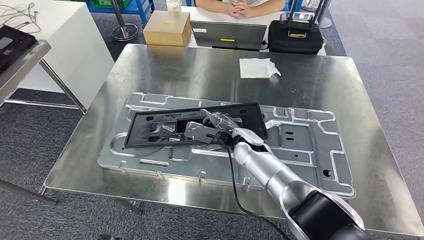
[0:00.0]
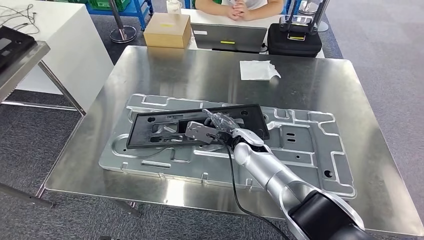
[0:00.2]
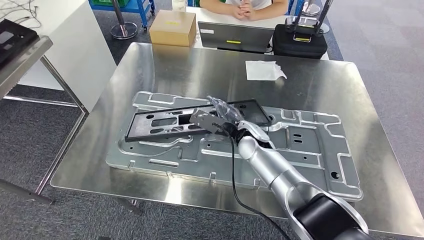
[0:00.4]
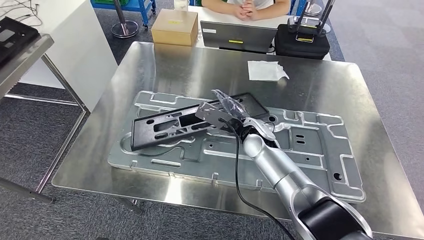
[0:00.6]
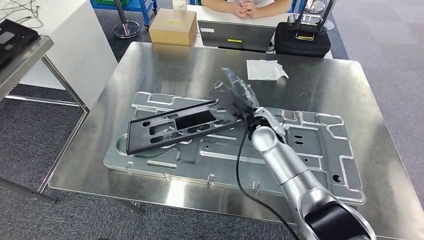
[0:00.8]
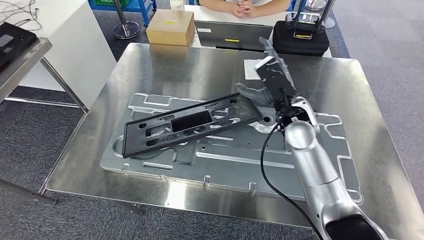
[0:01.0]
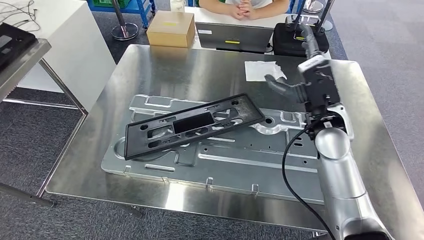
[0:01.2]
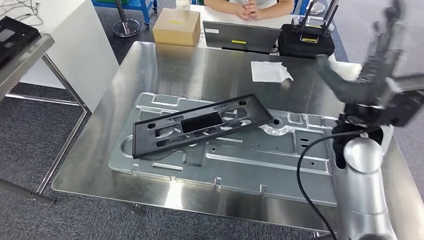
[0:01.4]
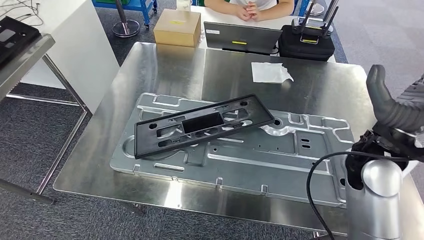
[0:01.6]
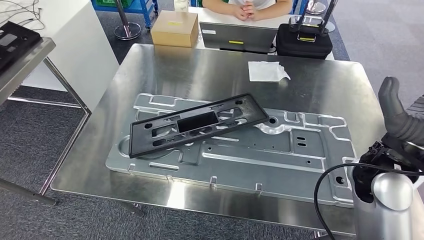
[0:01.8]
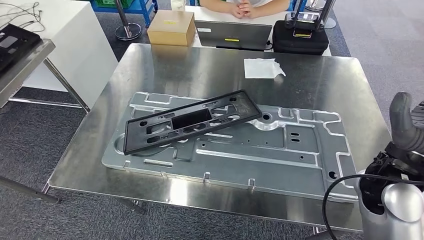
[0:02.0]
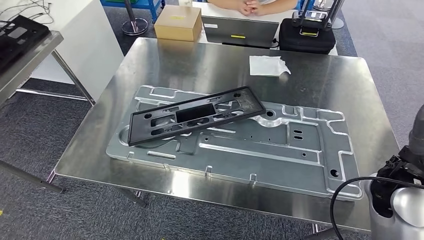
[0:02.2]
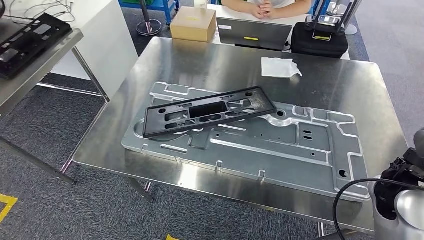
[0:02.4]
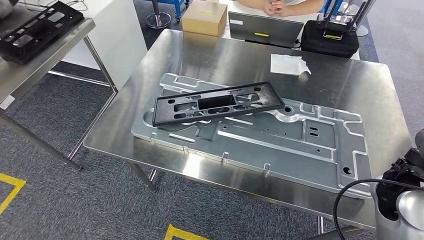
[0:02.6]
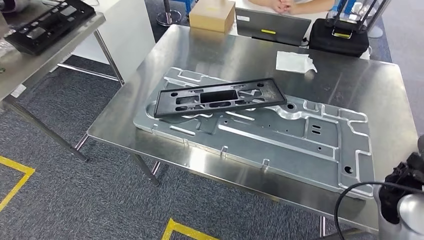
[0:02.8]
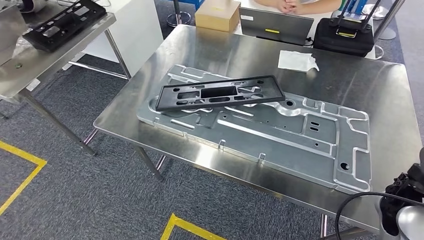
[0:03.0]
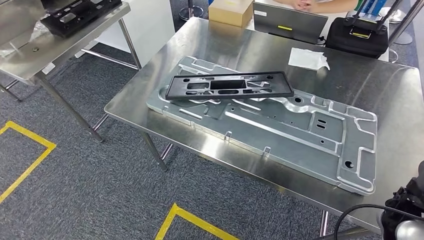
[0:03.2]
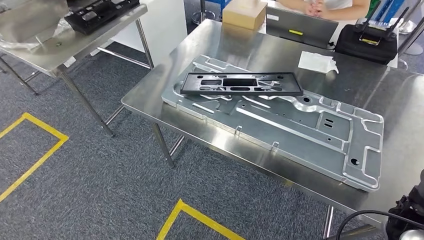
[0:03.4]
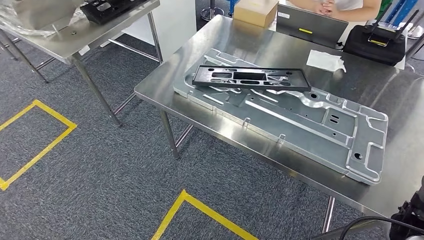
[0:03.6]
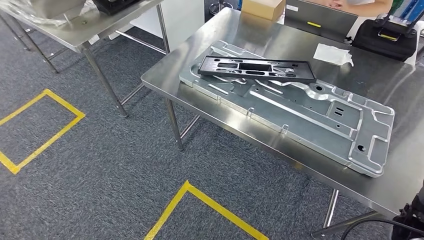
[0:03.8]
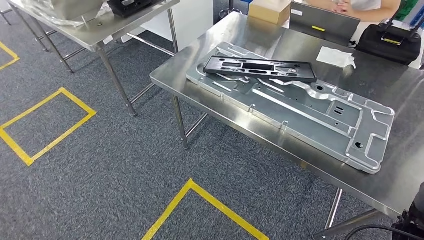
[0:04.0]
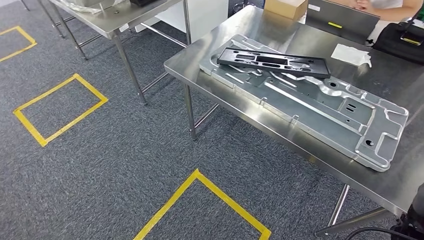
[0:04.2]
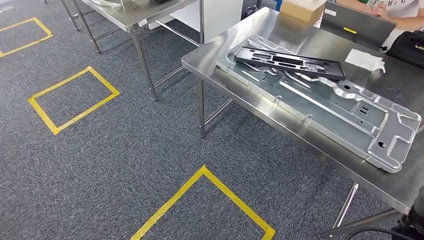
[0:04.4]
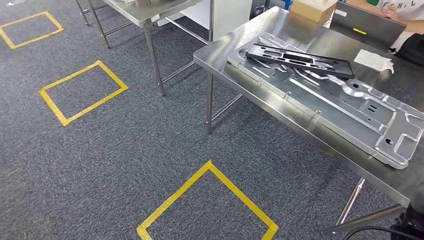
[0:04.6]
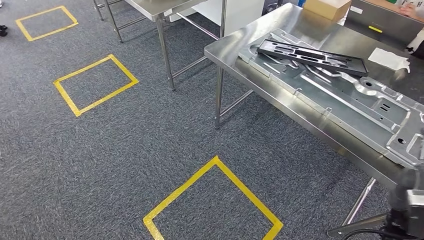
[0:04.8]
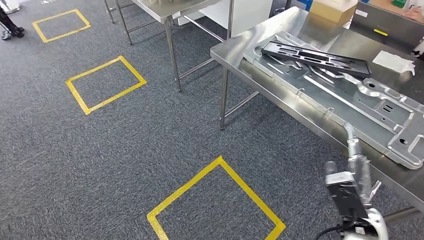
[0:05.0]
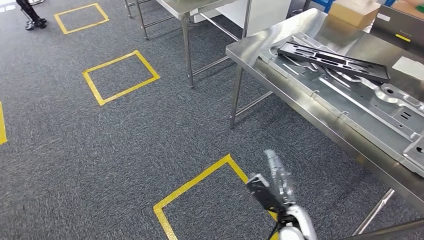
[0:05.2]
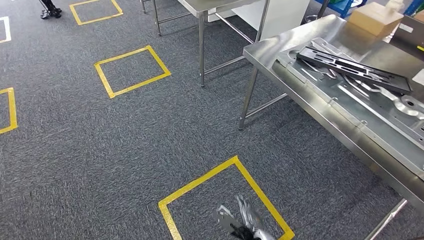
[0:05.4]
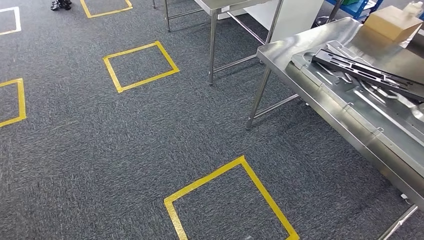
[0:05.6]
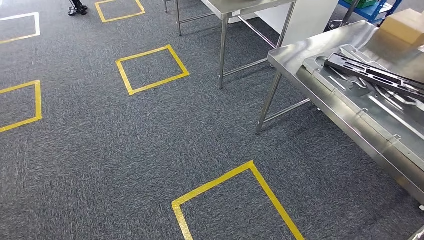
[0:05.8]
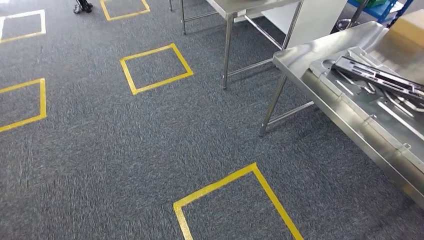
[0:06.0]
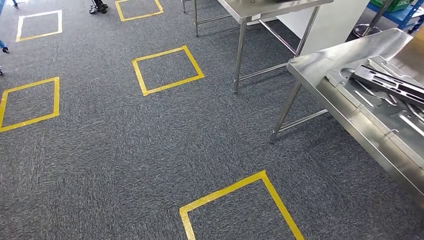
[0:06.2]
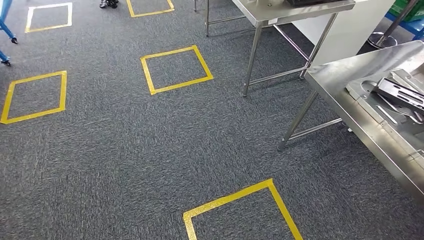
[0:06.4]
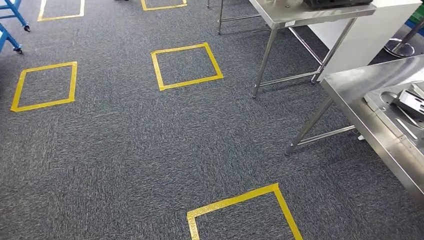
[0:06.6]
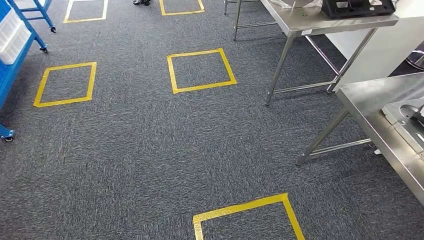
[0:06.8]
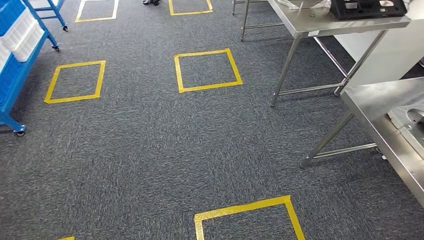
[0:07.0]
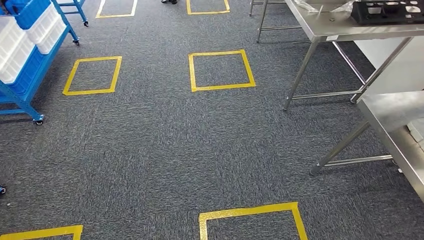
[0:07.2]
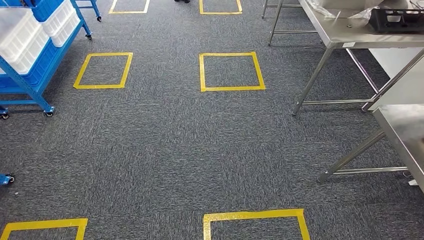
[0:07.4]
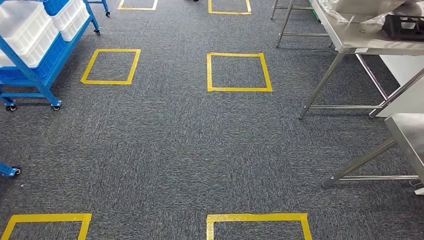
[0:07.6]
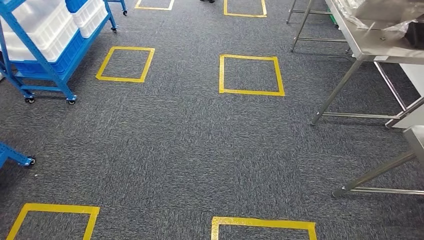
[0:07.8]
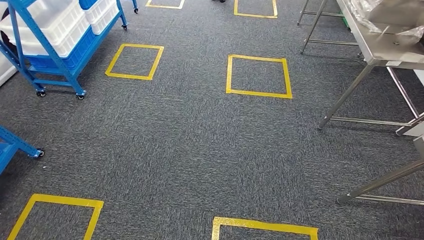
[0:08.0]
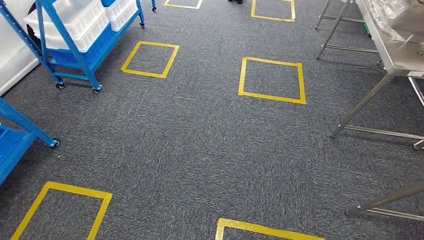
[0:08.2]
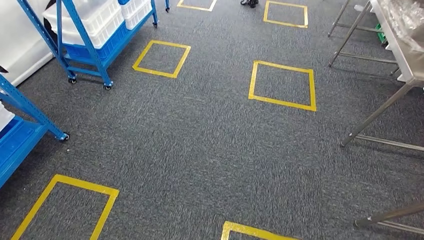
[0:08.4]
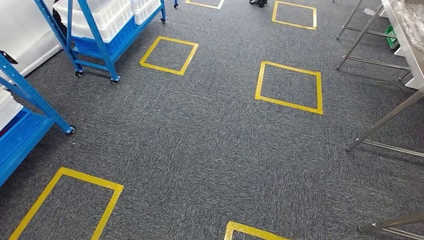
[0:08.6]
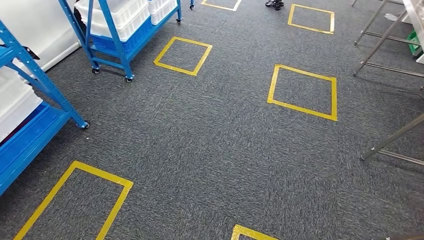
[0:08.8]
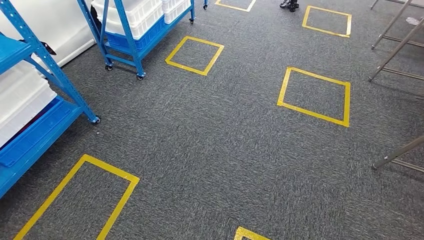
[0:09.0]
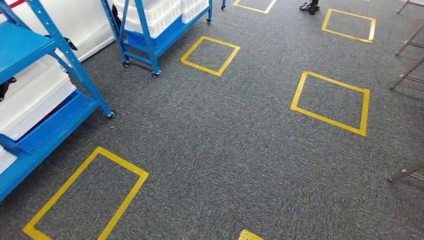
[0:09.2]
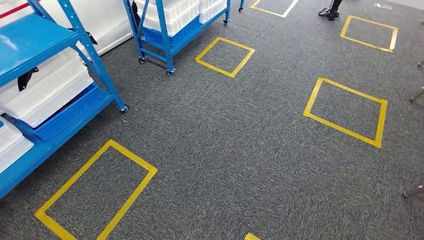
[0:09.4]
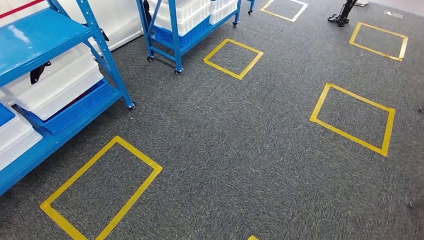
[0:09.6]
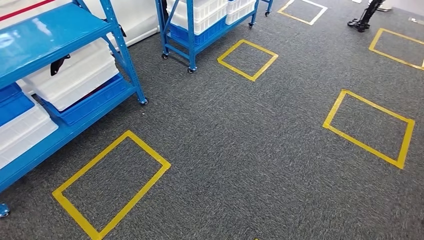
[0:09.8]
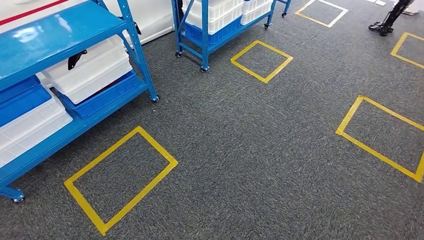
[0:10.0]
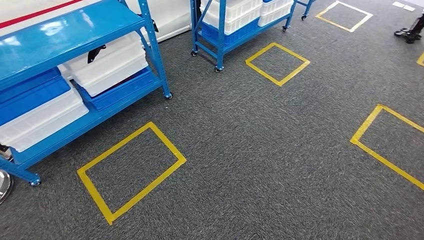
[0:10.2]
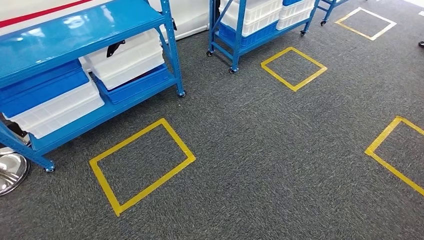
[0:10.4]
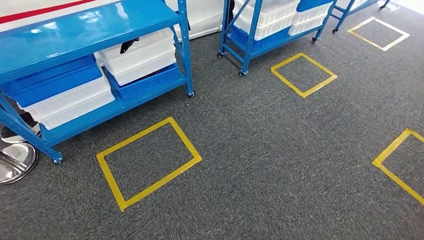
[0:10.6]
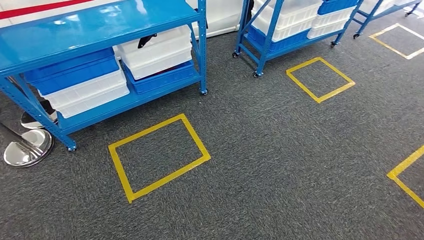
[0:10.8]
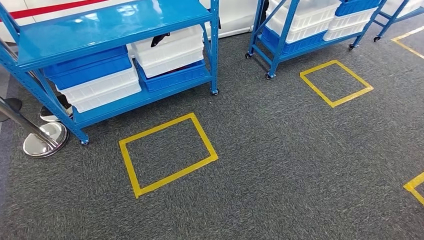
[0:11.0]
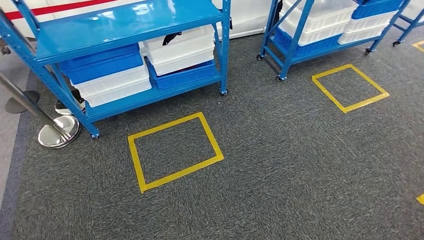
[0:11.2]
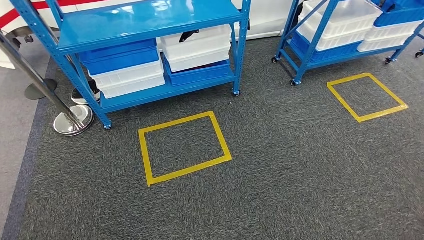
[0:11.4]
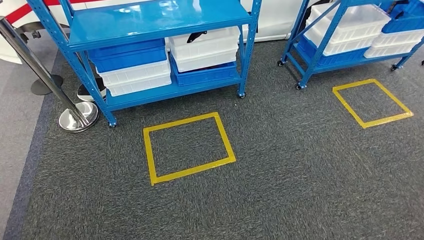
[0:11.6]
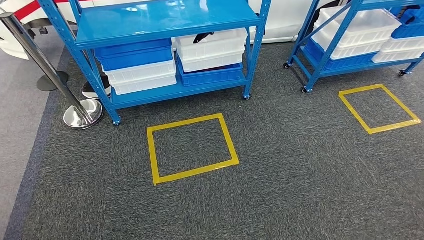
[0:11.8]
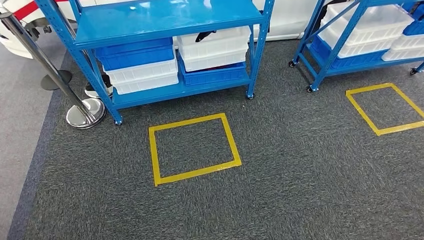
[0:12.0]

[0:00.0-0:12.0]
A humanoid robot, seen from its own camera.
Step, 0:00.0 to 0:03.4: Insert the large material into the corresponding slot on the workbench.

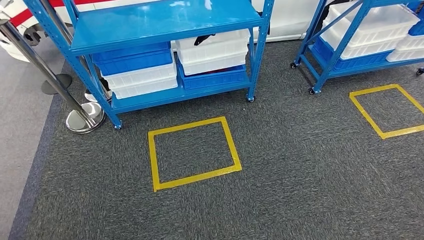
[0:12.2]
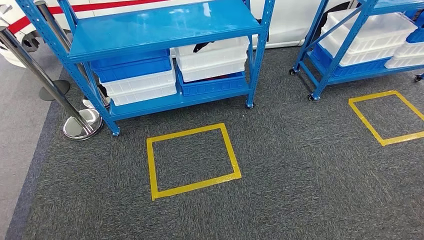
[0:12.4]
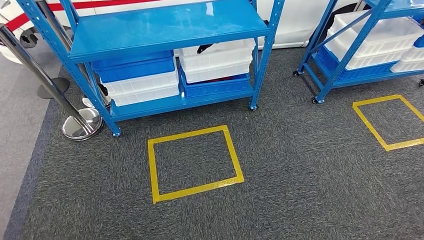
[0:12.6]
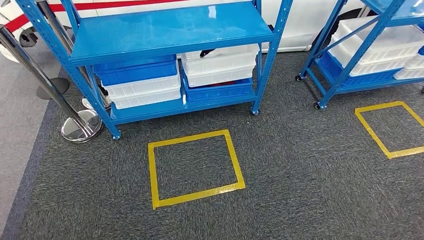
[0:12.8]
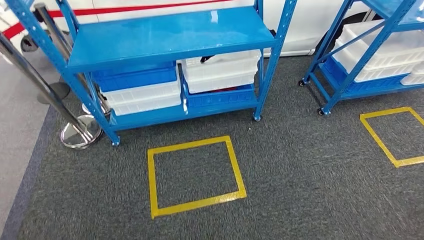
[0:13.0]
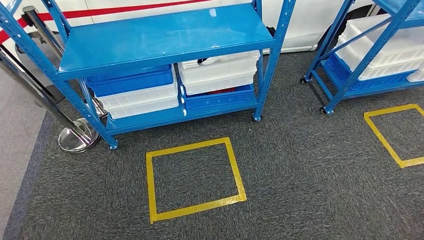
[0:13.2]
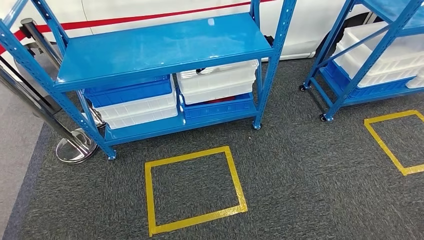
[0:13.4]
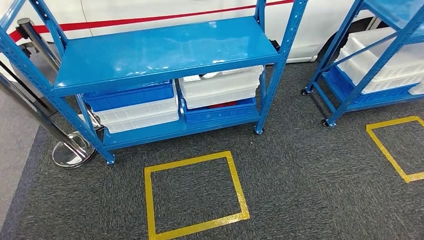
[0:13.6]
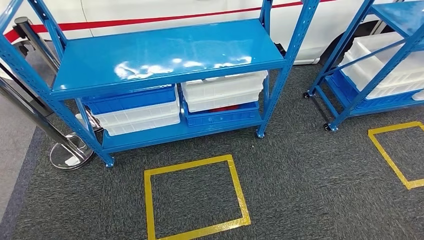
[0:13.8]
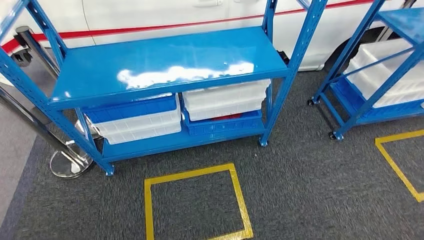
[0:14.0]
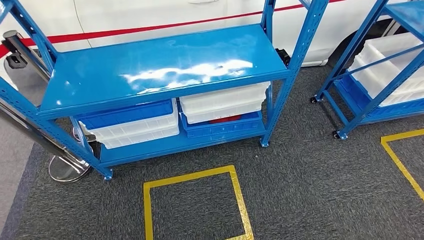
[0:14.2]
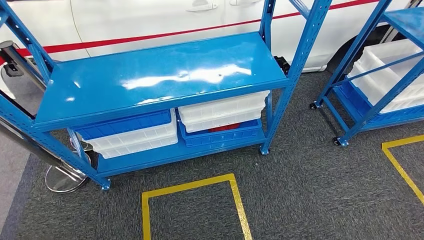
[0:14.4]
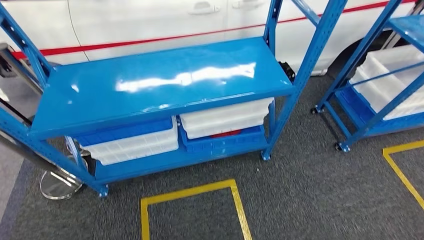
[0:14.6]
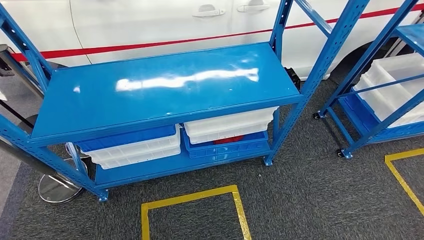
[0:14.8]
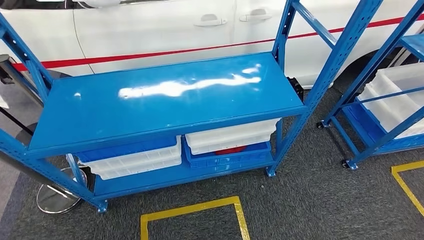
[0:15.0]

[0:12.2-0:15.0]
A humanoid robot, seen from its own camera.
Step, 0:12.2 to 0:15.0: Move to the initial position of the shelf.
